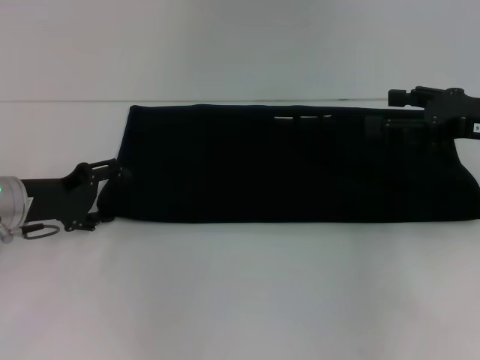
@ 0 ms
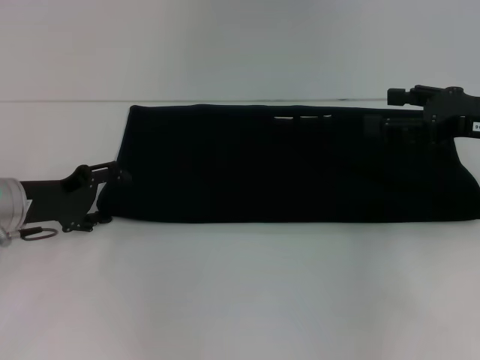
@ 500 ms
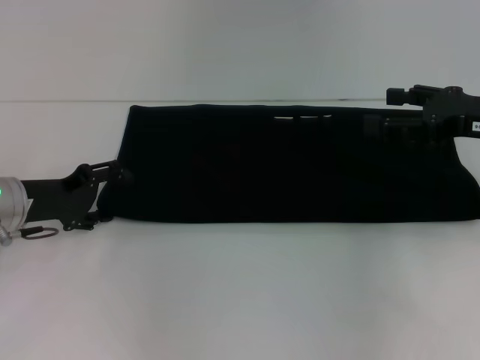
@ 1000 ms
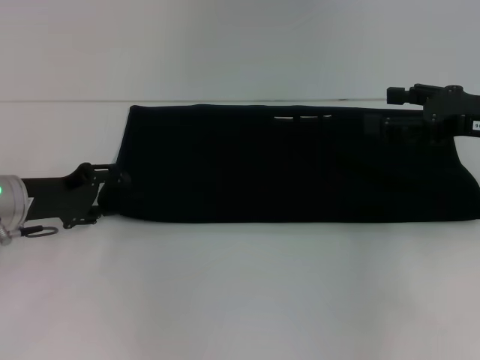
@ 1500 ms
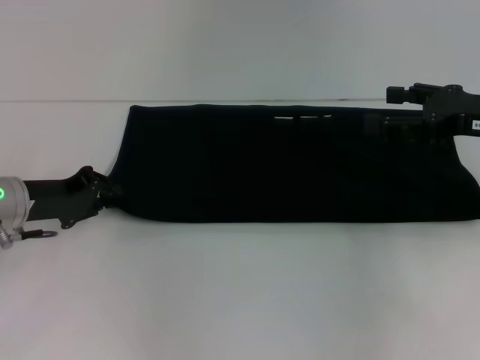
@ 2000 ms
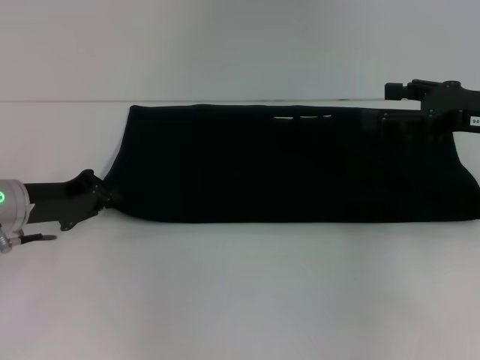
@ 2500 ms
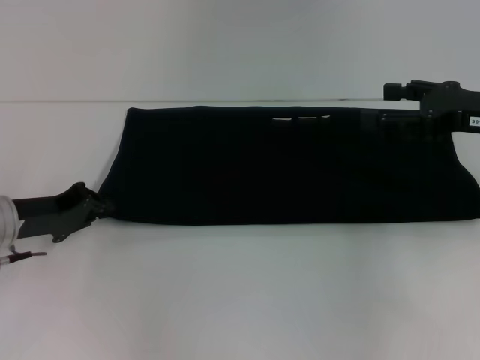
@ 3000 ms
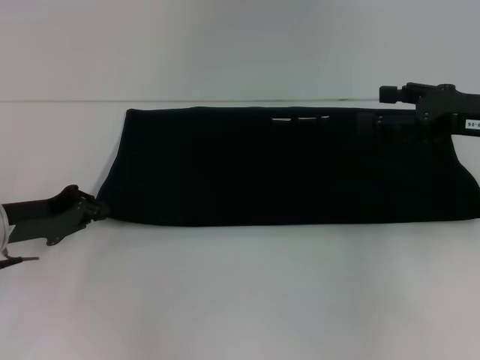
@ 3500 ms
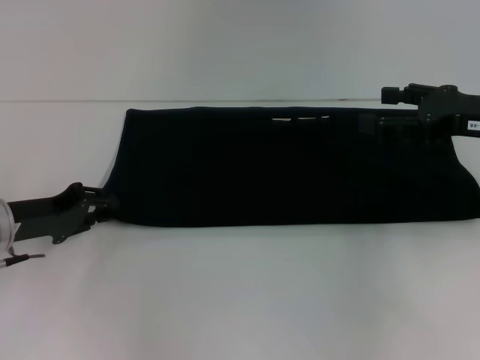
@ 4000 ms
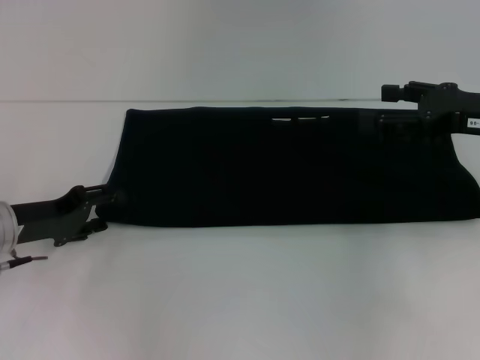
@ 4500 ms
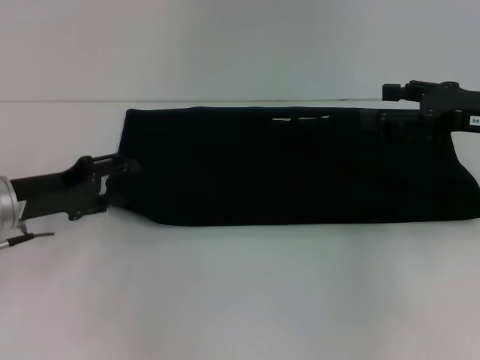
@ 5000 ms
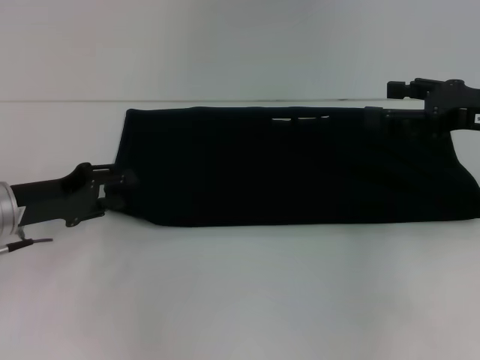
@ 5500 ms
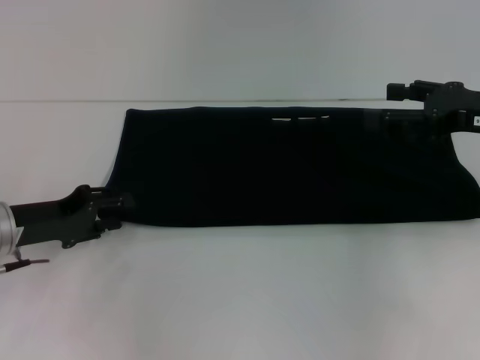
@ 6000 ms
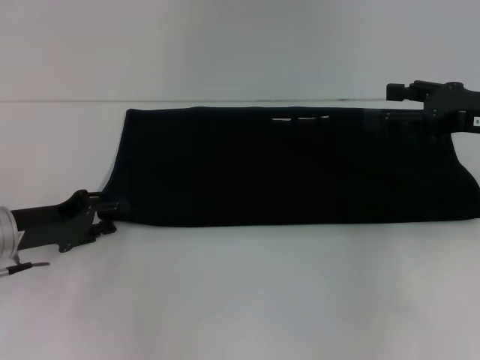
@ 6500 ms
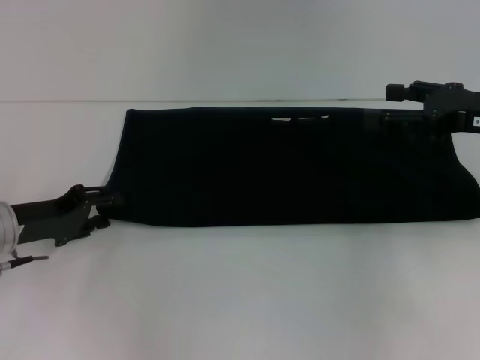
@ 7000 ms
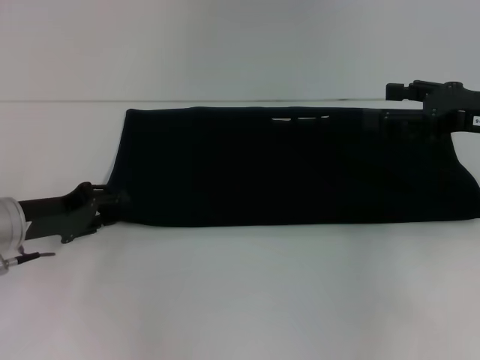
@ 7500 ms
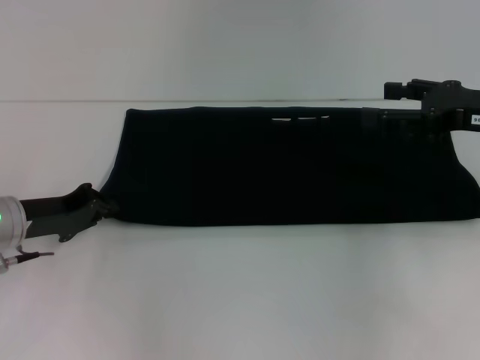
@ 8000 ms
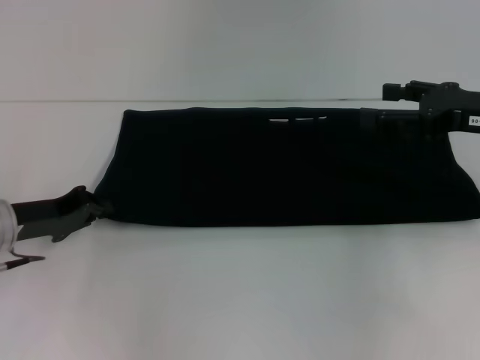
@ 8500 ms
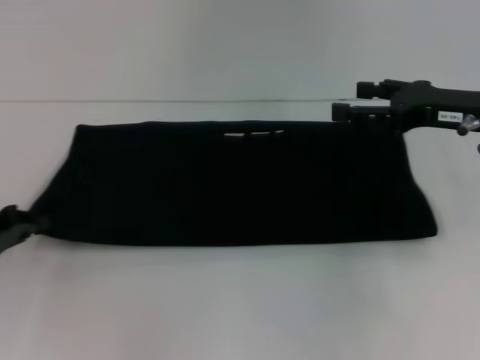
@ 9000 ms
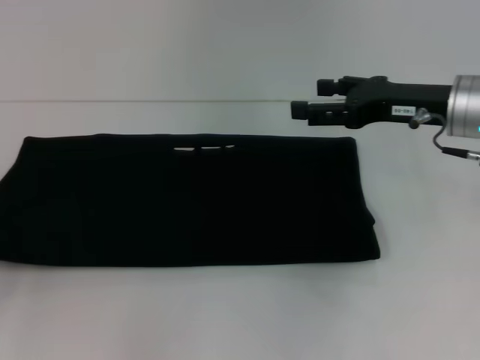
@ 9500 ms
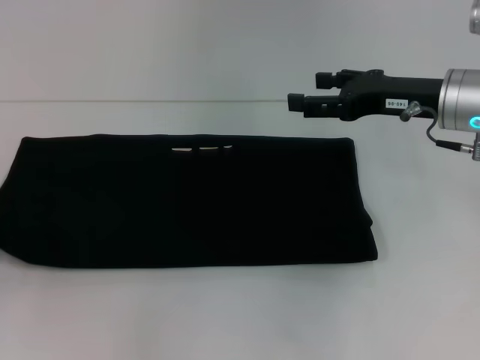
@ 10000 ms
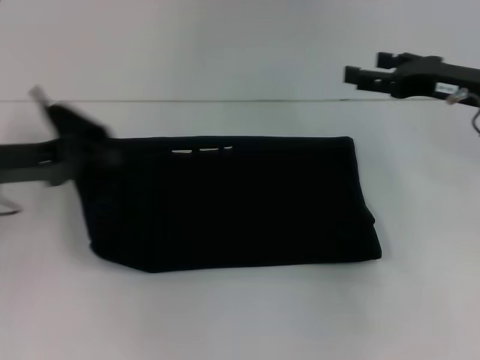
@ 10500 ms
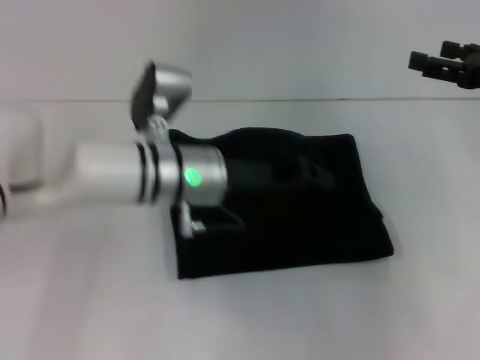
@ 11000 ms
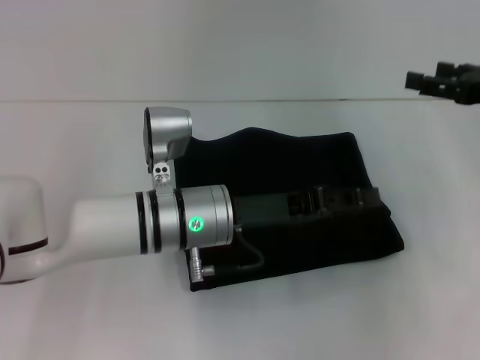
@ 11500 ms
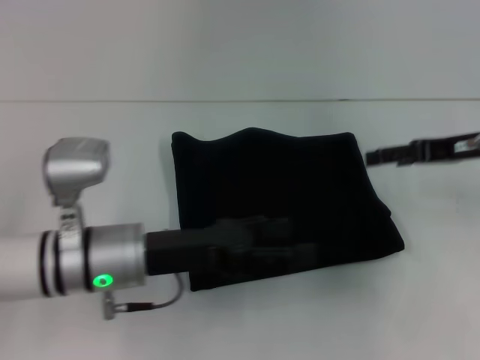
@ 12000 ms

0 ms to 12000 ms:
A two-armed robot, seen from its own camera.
Step, 0 ms to 11500 ms: Fold the clothes with your left hand.
0 ms to 2000 ms: The left gripper closes its fingers.
2000 ms to 4000 ms: The grippers make only small movements.
4000 ms to 6000 ms: The left gripper opens.
6000 ms to 8000 ms: The grippers stay close to where they were, moving slightly.
8000 ms to 10000 ms: The left gripper heads to the left and backward, covering roughly 15 cm. Meanwhile the right gripper travels to the left by approximately 5 cm.
10000 ms to 12000 ms: The left gripper travels to the right by roughly 25 cm, and opens its fingers. The right gripper travels to the right by approximately 5 cm.

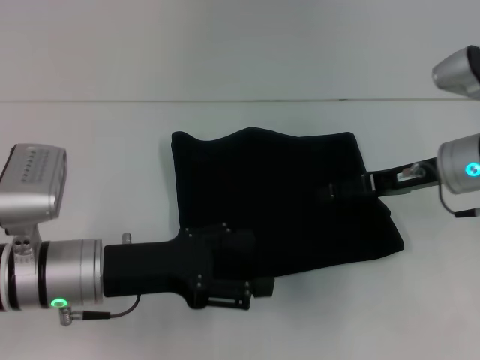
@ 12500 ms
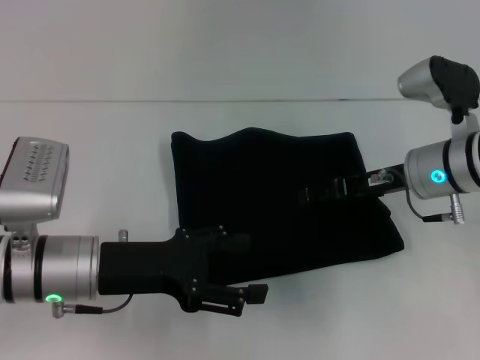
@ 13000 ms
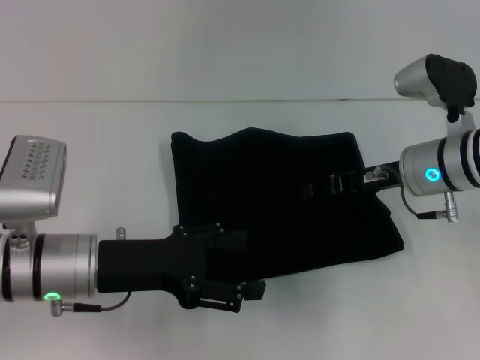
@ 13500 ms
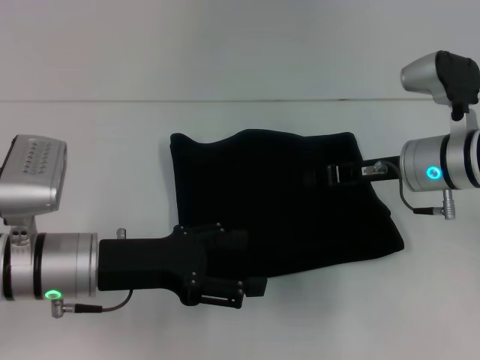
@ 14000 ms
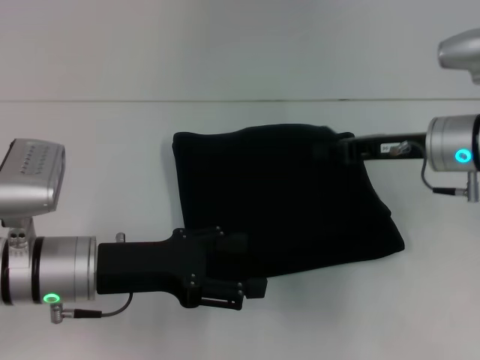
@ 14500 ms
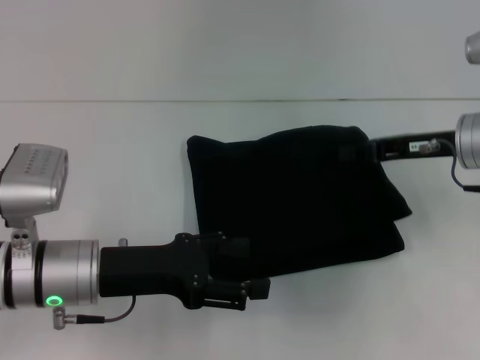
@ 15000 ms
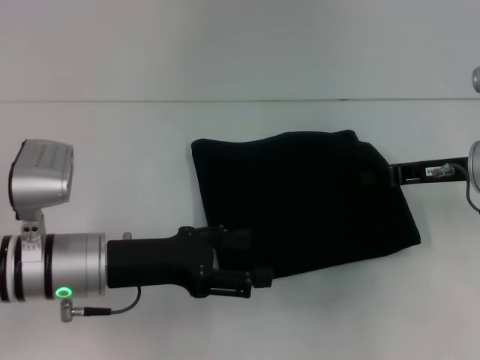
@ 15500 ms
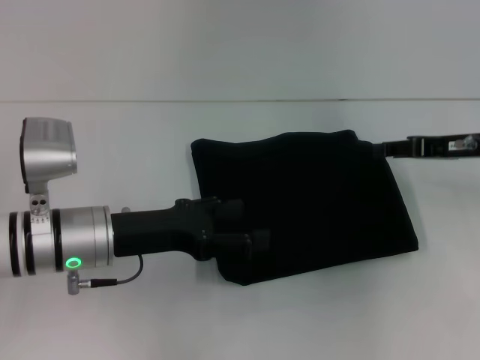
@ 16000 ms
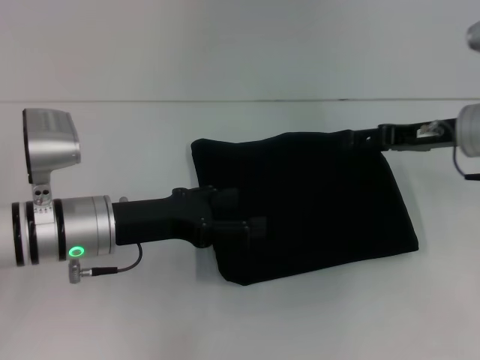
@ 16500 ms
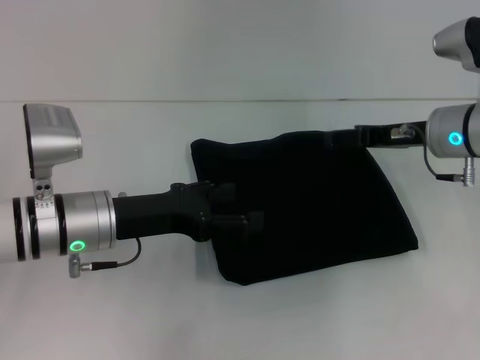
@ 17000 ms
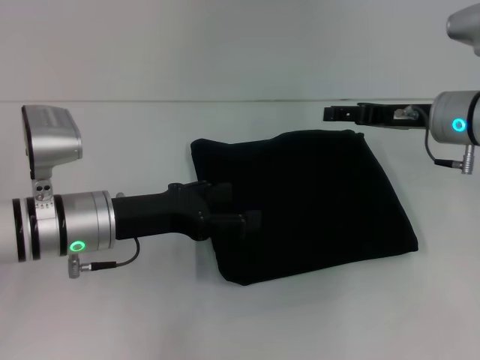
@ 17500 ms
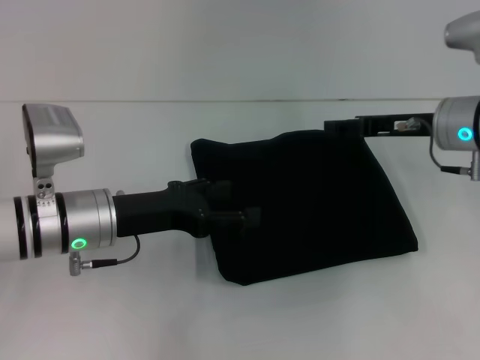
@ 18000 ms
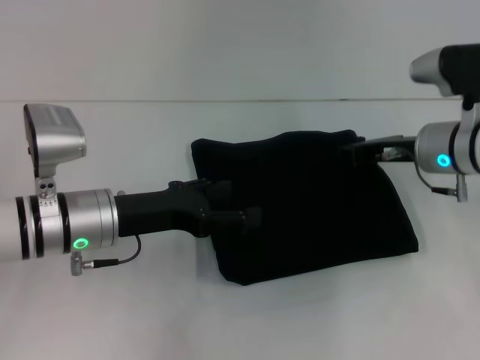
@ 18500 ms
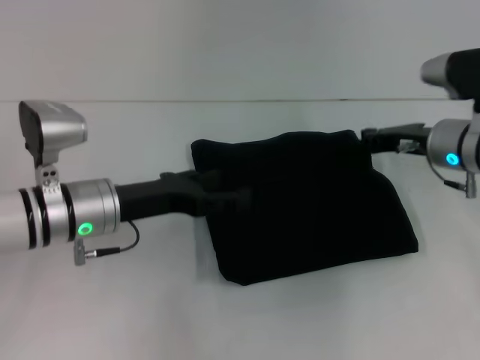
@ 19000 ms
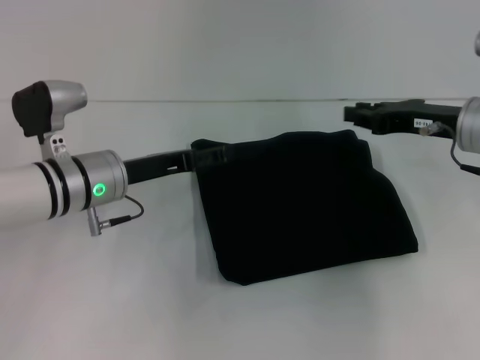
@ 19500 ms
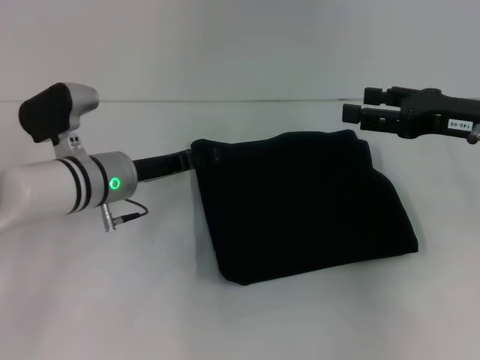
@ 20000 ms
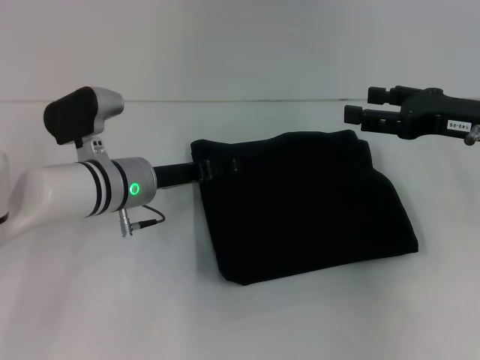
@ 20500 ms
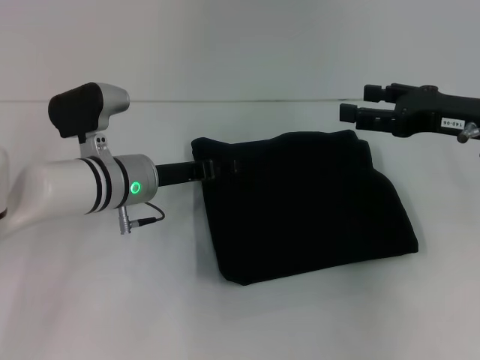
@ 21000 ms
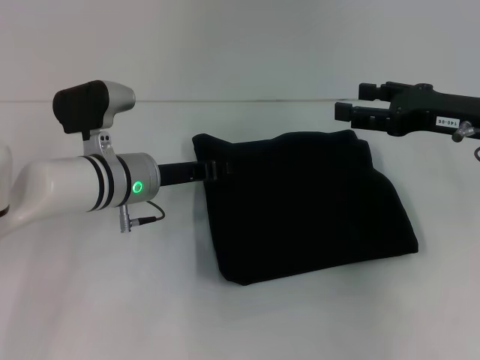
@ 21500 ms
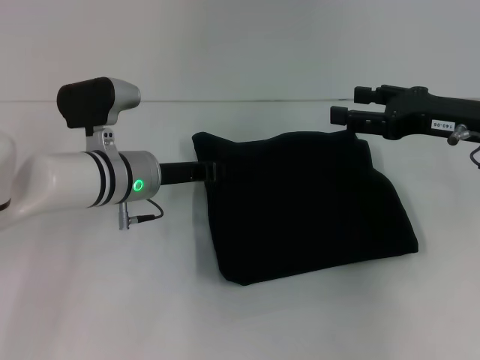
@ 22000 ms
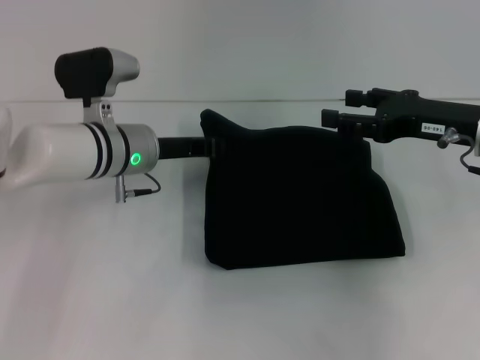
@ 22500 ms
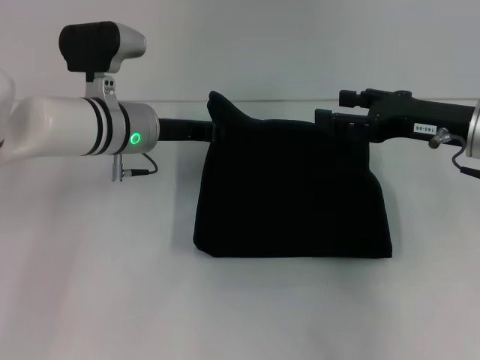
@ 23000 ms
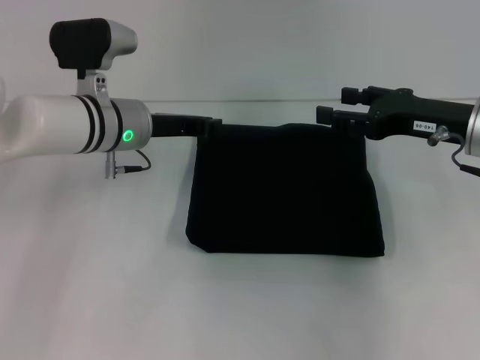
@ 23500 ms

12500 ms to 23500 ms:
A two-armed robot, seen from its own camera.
12500 ms to 14500 ms: The right gripper closes.
14500 ms to 16000 ms: The right gripper is displaced to the right by roughly 5 cm.
16000 ms to 18000 ms: The right gripper heads to the left, covering approximately 5 cm, and opens its fingers.
18000 ms to 20000 ms: The right gripper goes approximately 5 cm backward, and closes, then reopens; the left gripper shifts roughly 5 cm forward.
20000 ms to 21500 ms: The left gripper closes its fingers.
21500 ms to 23500 ms: The left gripper ends up some 5 cm from where it was, and closes its fingers.

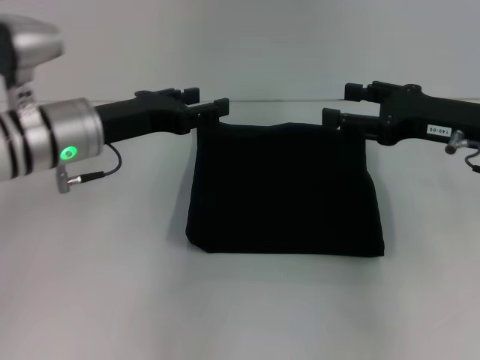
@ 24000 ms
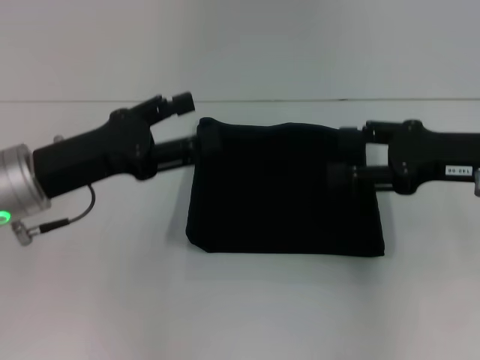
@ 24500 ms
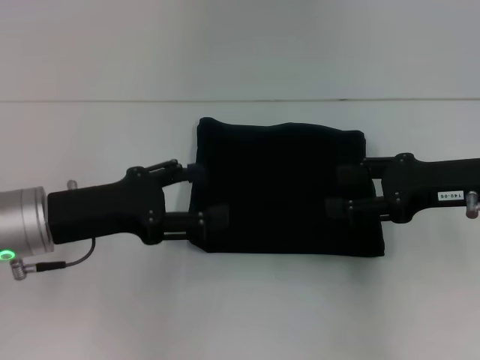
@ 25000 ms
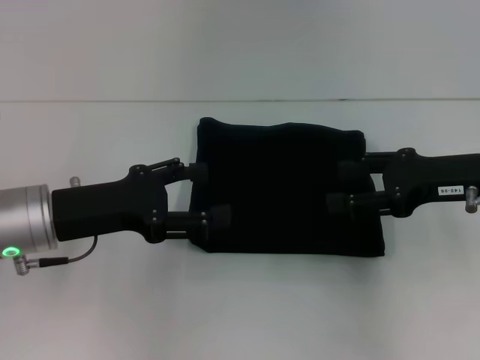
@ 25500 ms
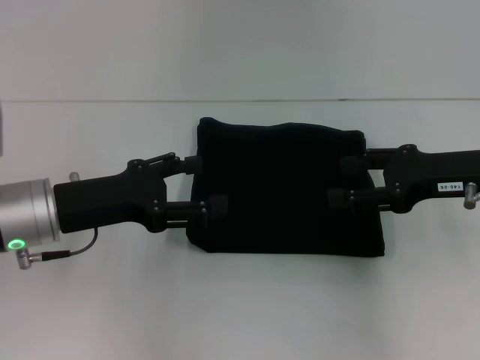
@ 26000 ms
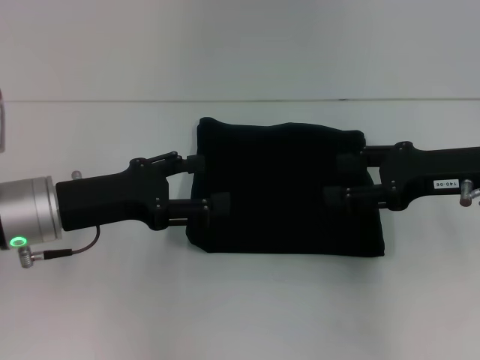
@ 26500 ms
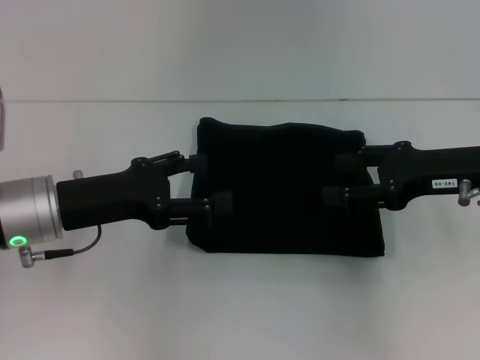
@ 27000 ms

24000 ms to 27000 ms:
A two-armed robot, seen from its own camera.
24000 ms to 25500 ms: The left gripper travels backward by some 10 cm, and opens its fingers.
25500 ms to 27000 ms: The two grippers keep their place.
